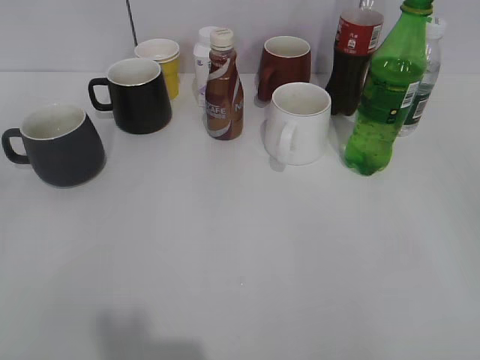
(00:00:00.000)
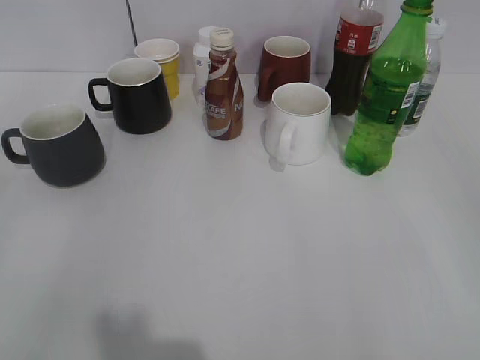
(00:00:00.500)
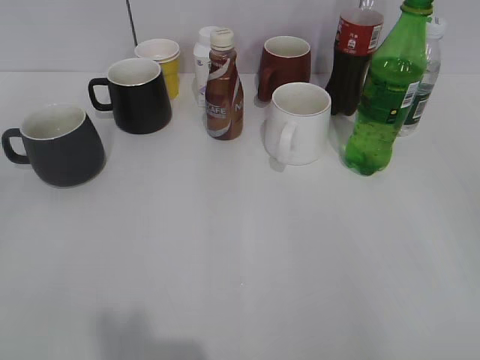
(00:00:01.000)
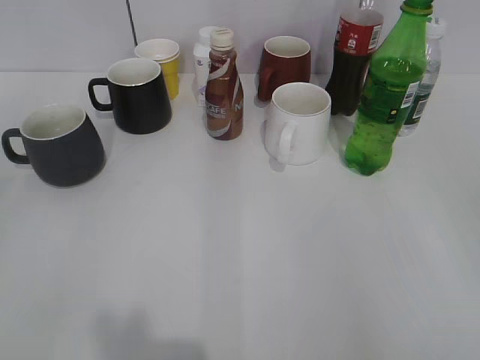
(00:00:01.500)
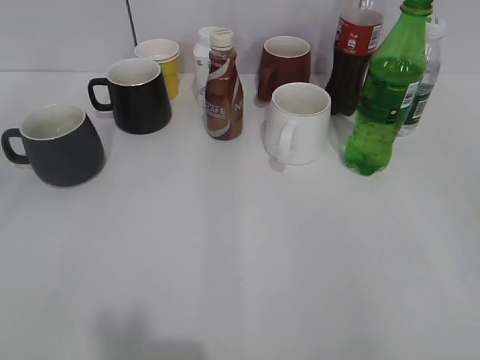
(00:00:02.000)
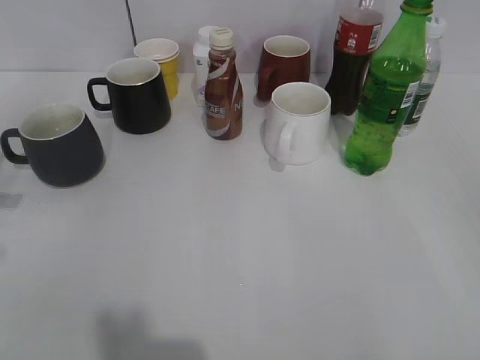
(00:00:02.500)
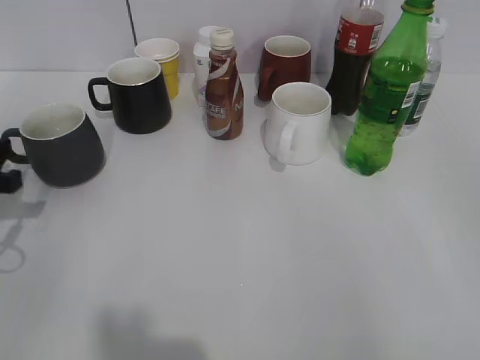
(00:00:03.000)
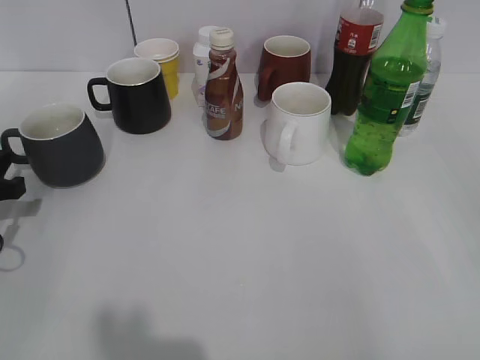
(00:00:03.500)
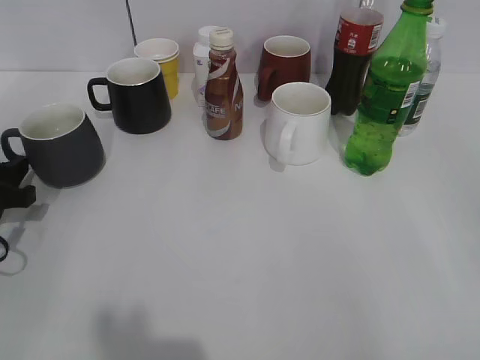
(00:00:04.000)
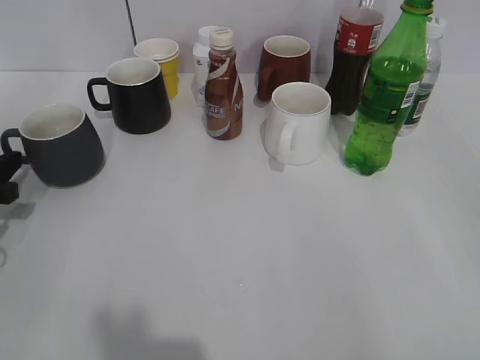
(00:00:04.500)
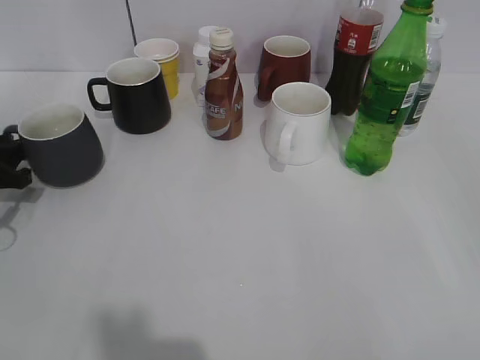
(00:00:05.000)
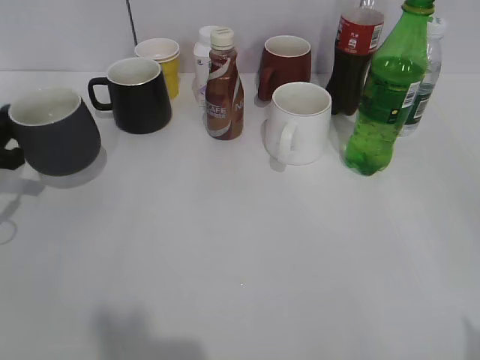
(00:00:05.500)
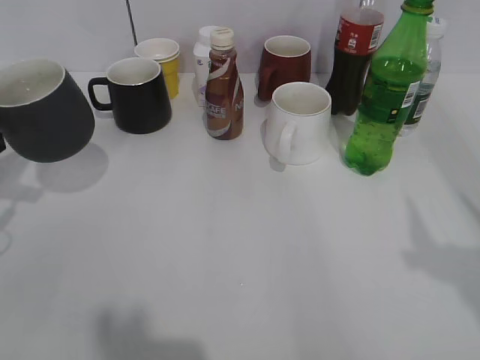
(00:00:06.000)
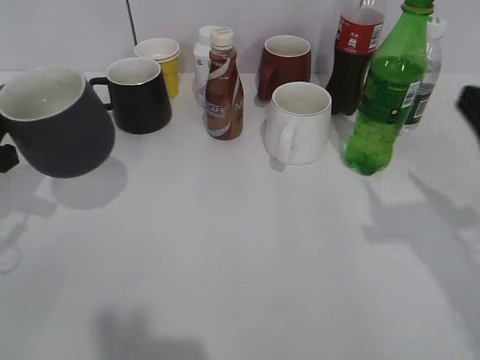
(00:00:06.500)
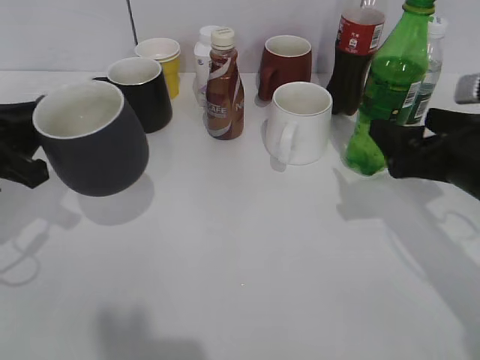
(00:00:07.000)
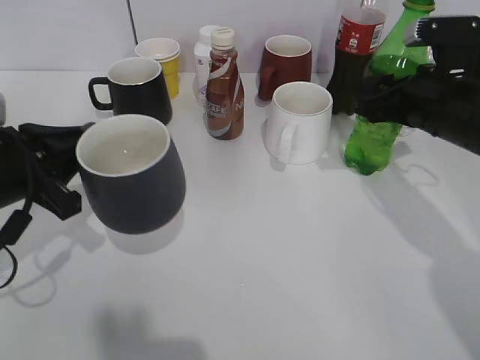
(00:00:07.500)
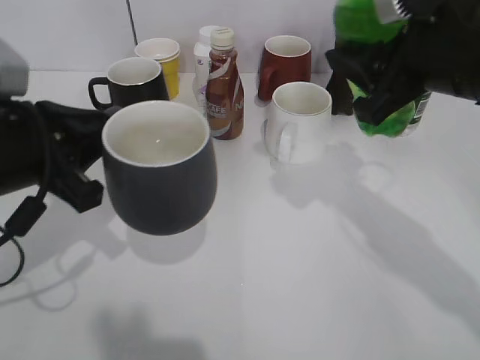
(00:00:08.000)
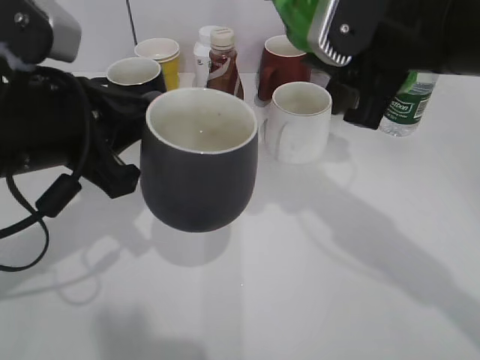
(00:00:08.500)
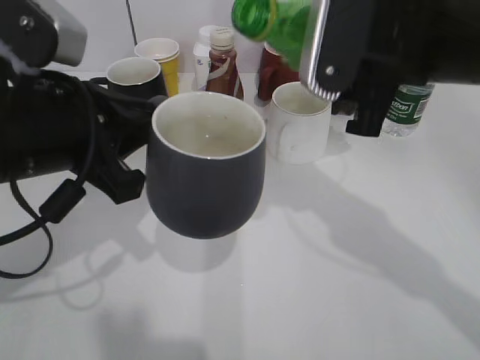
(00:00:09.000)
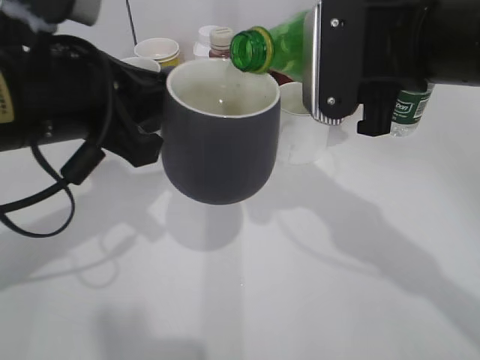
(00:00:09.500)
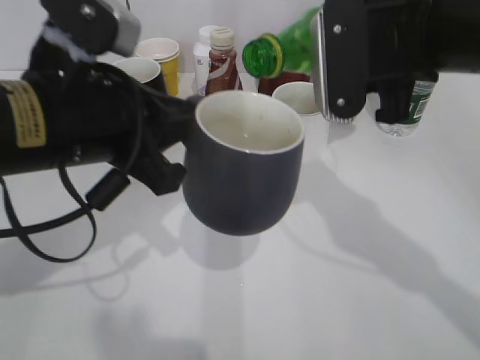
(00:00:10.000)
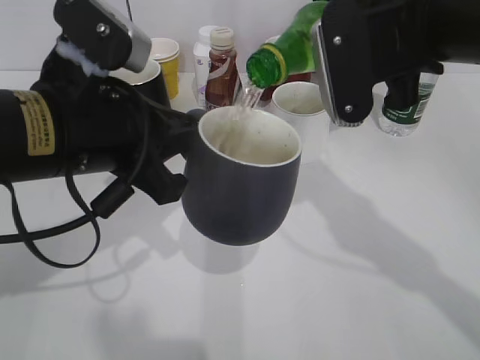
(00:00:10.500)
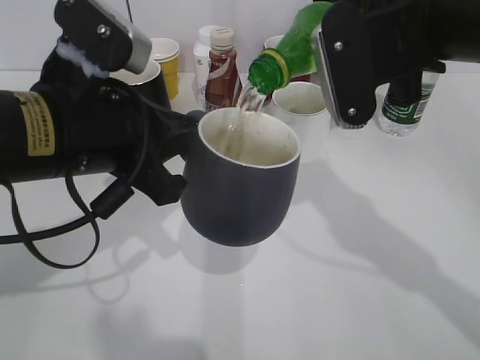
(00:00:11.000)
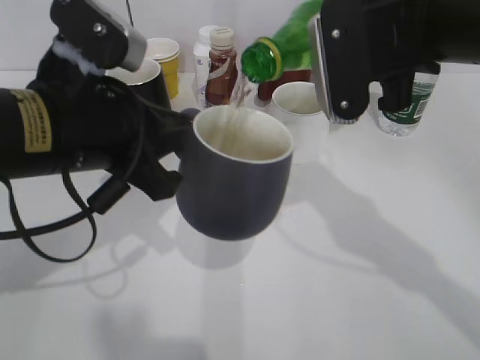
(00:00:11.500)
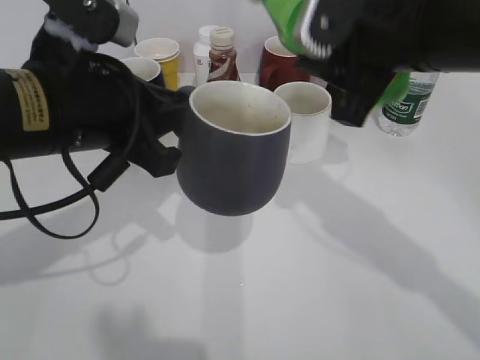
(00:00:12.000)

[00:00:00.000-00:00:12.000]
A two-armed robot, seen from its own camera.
Step, 00:00:02.000 to 00:00:05.000: Grasp the grey cup with left gripper.
Step, 00:00:05.500 to 00:00:07.500: Grasp the bottle with sprite with right gripper.
Step, 00:00:08.000 to 00:00:11.500: Pour the sprite from bottle to cup with right gripper.
00:00:02.000 to 00:00:04.000: The left gripper travels forward and downward by roughly 30 cm.
00:00:04.000 to 00:00:06.000: The left gripper heads upward, covering approximately 5 cm, and closes its fingers.
00:00:06.000 to 00:00:08.000: The right gripper is displaced forward, to the left and downward by approximately 25 cm, and closes. Meanwhile the left gripper is displaced to the right and backward by roughly 15 cm.
00:00:08.000 to 00:00:10.000: The left gripper goes roughly 5 cm to the right.

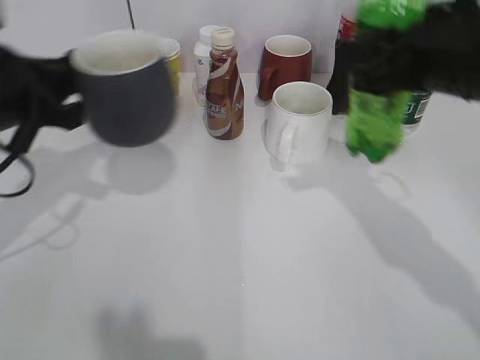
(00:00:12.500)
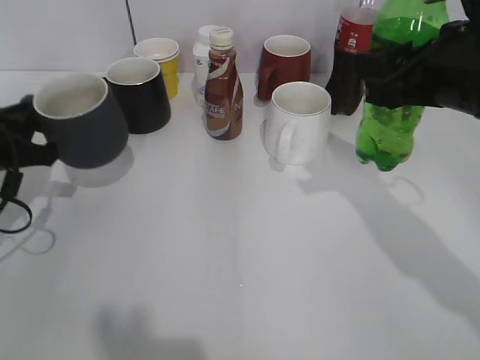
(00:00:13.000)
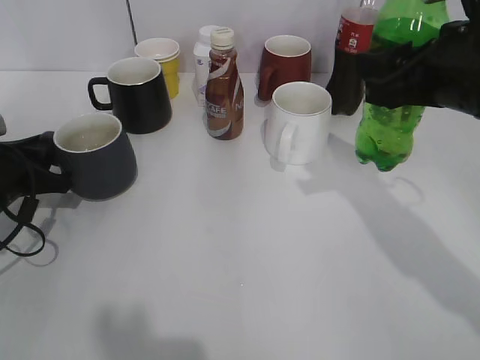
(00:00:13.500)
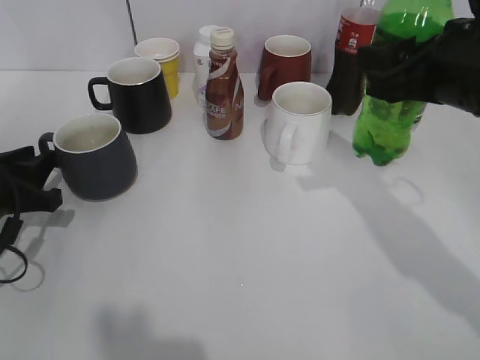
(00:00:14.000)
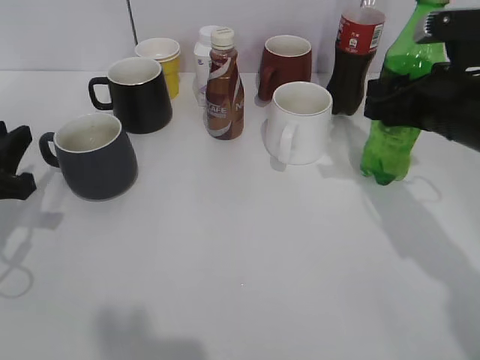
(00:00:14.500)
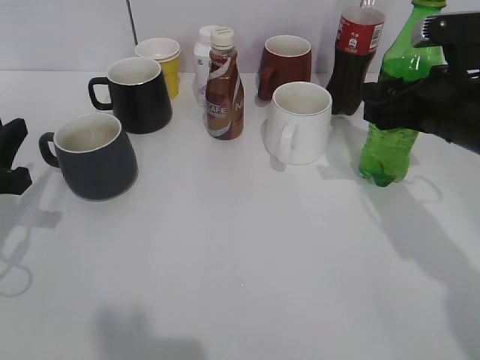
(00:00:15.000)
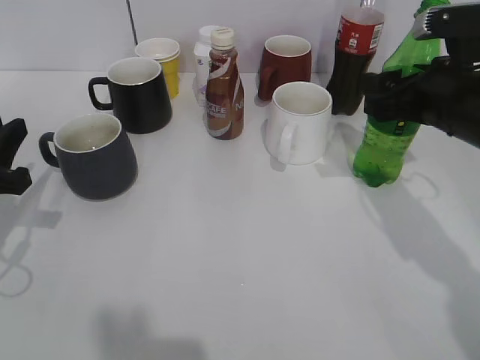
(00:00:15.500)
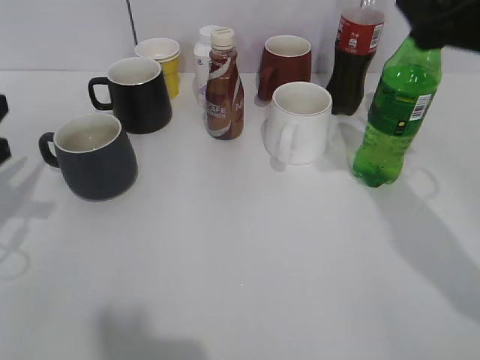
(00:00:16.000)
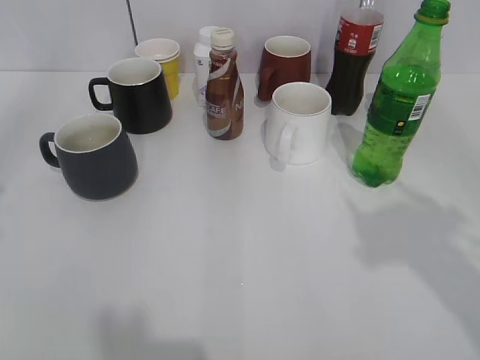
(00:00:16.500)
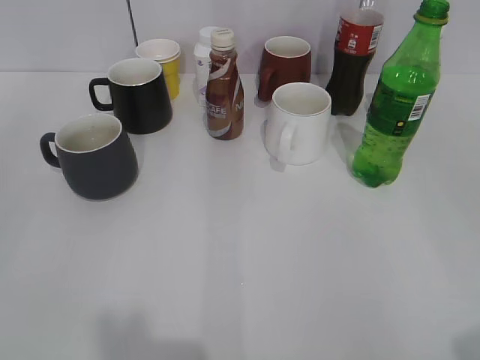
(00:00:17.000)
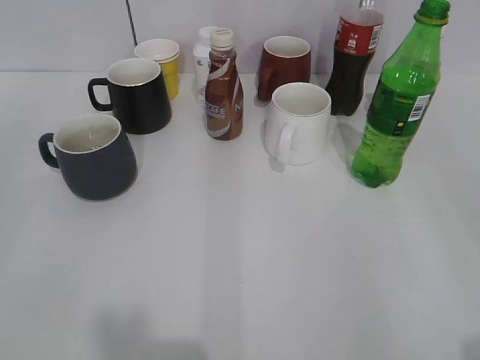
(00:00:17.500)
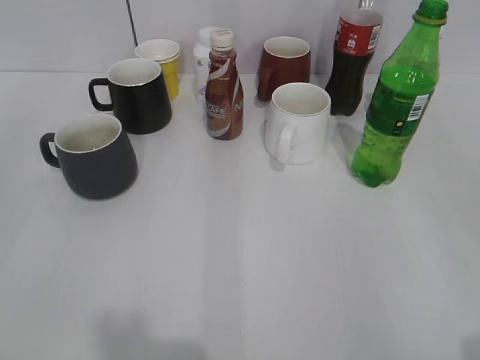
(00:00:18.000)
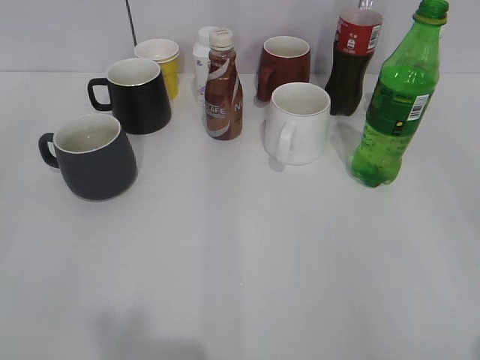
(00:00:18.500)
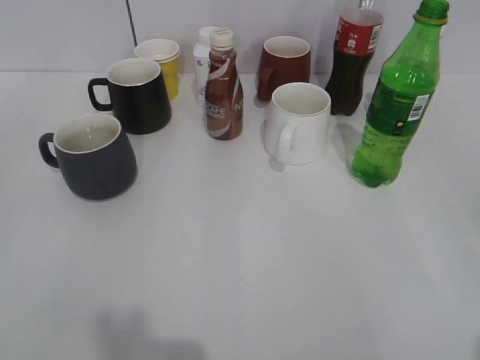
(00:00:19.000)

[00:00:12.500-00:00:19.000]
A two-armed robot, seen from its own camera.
Step, 00:00:12.500 to 00:00:13.500: Place the grey cup on the table with left gripper.
Step, 00:00:14.000 to 00:00:15.500: Place the sprite bottle on the table with right gripper.
00:00:12.500 to 00:00:14.500: The right gripper goes roughly 5 cm downward, while the left gripper moves downward and to the left, roughly 10 cm, and opens its fingers.
00:00:14.500 to 00:00:17.000: The left gripper travels backward and upward by approximately 25 cm, and opens its fingers, while the right gripper moves backward, approximately 30 cm, and opens up.

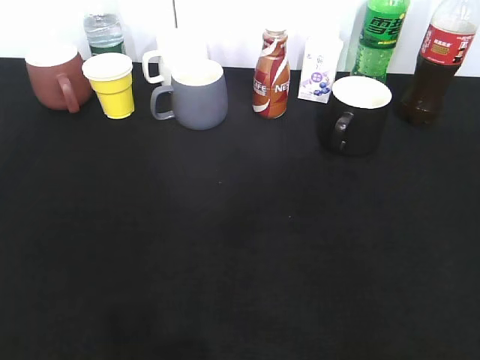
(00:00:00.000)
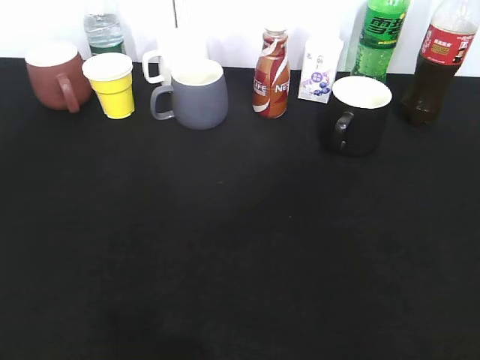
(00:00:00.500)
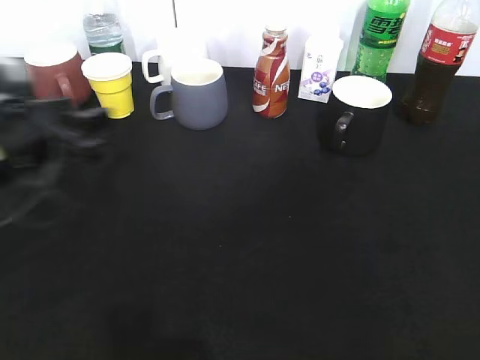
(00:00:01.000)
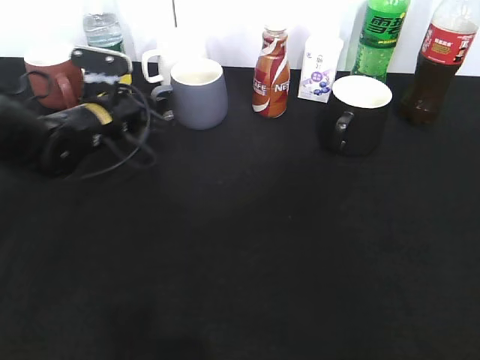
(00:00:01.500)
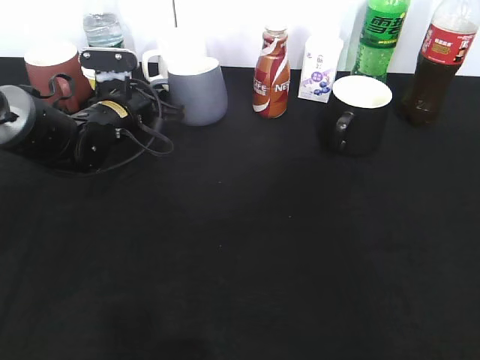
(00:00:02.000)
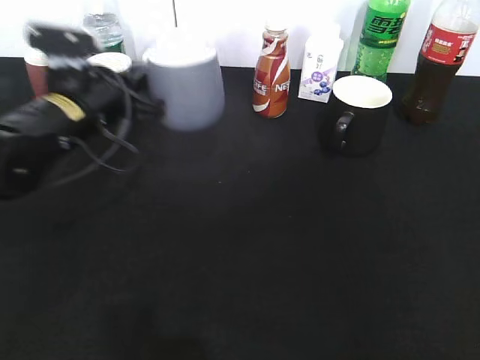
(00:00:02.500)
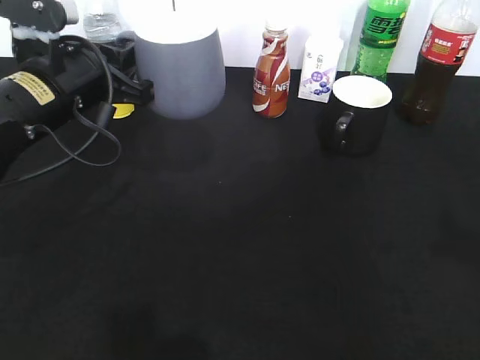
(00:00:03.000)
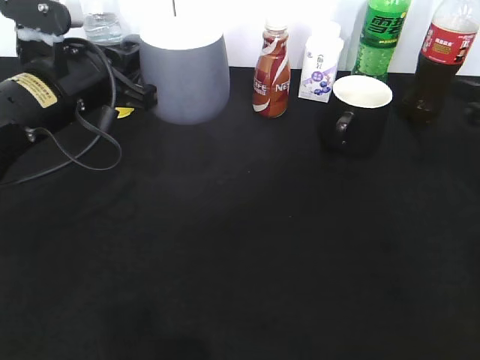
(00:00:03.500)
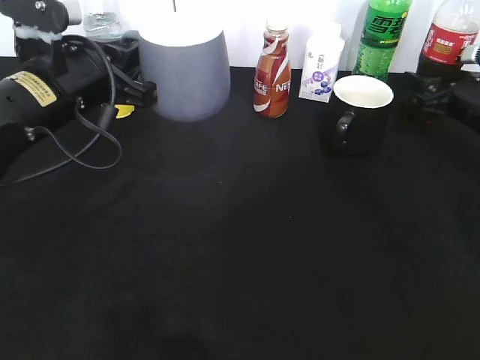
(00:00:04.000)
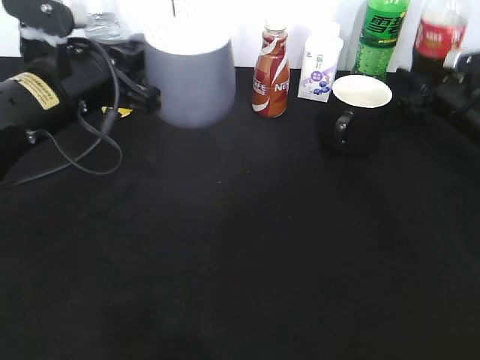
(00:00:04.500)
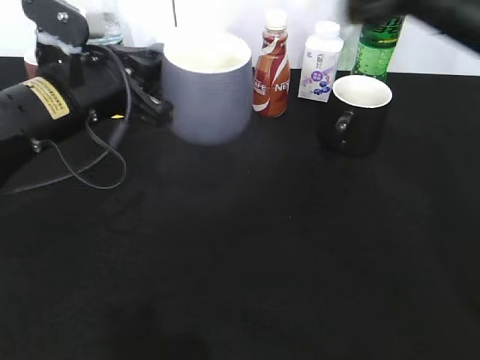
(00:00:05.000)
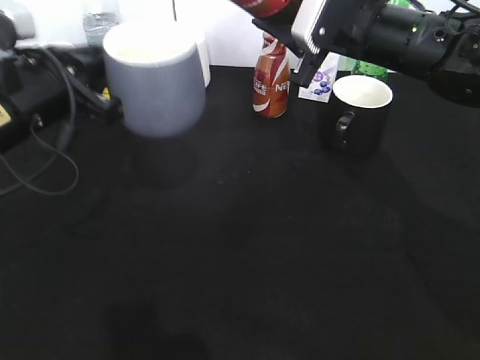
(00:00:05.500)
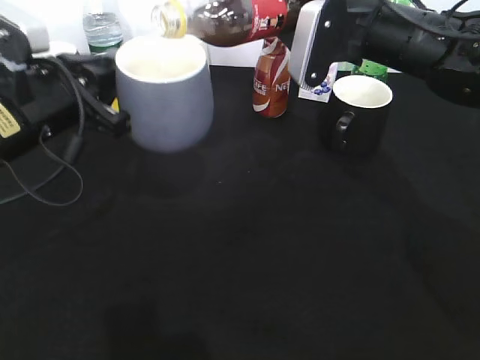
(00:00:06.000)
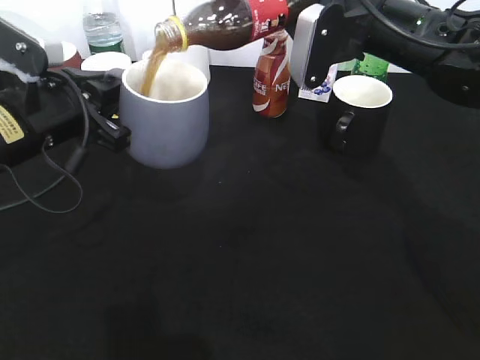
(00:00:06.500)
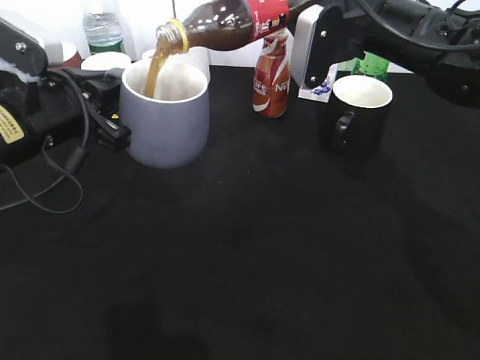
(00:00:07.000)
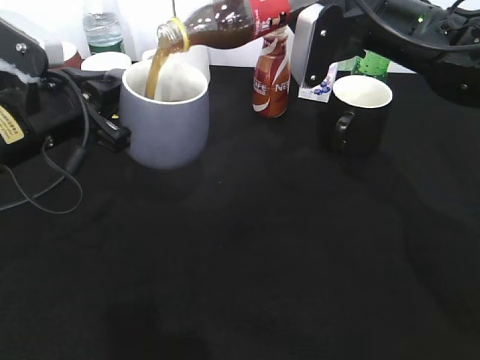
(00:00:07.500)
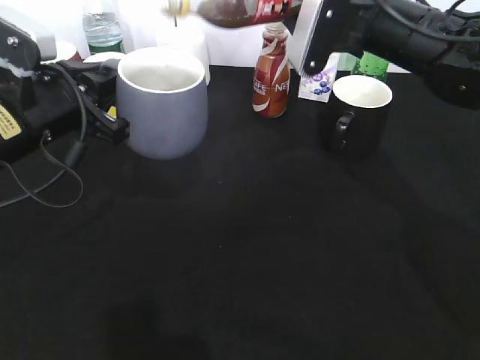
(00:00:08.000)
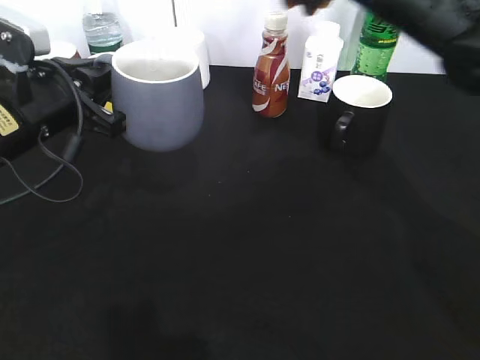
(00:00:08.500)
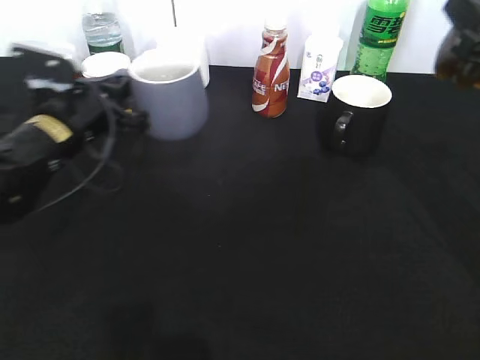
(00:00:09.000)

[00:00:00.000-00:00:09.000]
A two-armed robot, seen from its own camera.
Step, 00:00:00.000 to 00:00:02.000: Grasp the grey cup with left gripper.
Step, 00:00:02.500 to 00:00:03.000: Lift the grey cup with left gripper.
Step, 00:00:03.500 to 00:00:04.000: Grasp the bottle with cola with right gripper.
Step, 00:00:04.500 to 00:00:07.500: Pour the cola from bottle to cup with right gripper.
00:00:00.000 to 00:00:02.000: The left gripper goes roughly 40 cm forward, and closes.
00:00:02.000 to 00:00:04.500: The right gripper shifts approximately 40 cm forward, and closes up, while the left gripper heads backward and upward, covering some 15 cm.
00:00:04.500 to 00:00:07.000: The right gripper moves to the left and upward, approximately 25 cm.
00:00:07.000 to 00:00:09.000: The right gripper heads to the right and backward, covering some 15 cm. Meanwhile the left gripper goes some 10 cm forward and downward.
